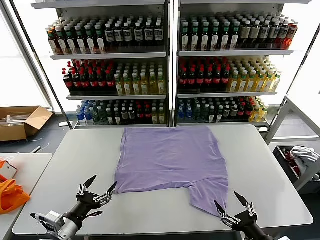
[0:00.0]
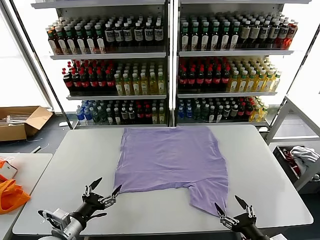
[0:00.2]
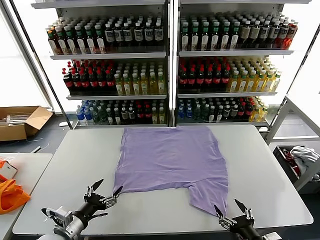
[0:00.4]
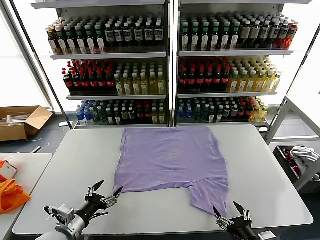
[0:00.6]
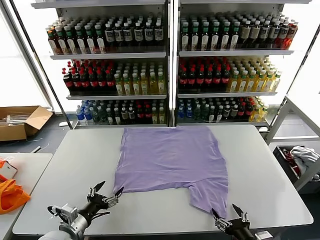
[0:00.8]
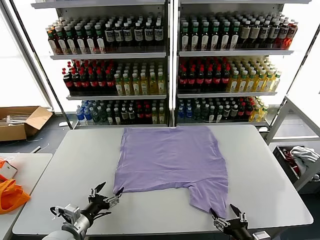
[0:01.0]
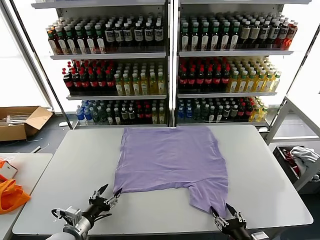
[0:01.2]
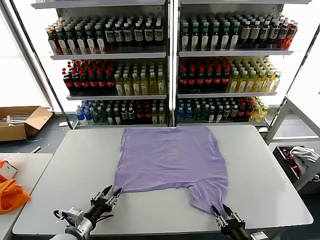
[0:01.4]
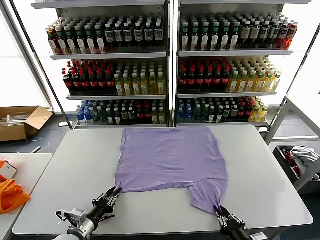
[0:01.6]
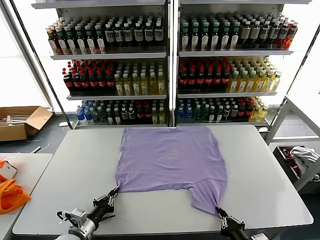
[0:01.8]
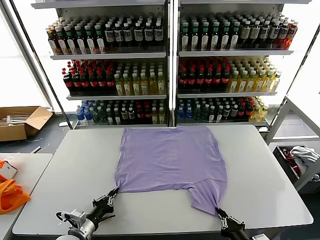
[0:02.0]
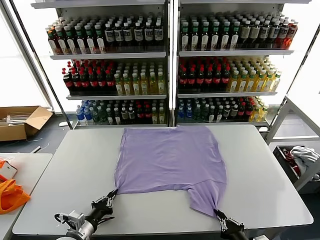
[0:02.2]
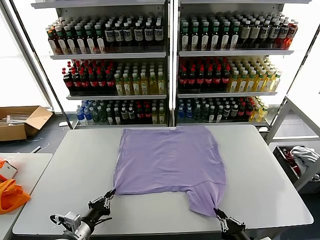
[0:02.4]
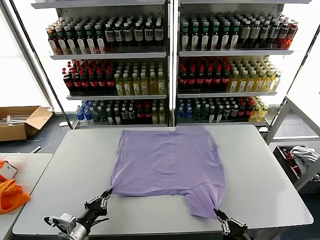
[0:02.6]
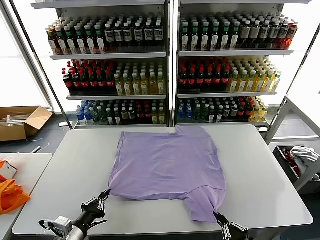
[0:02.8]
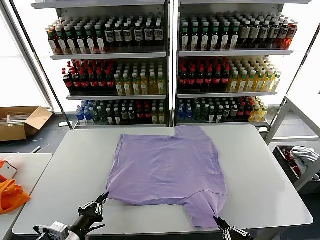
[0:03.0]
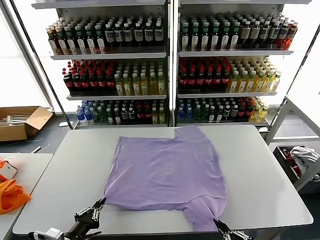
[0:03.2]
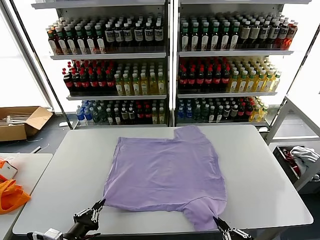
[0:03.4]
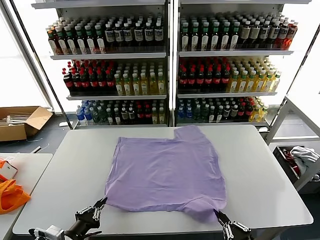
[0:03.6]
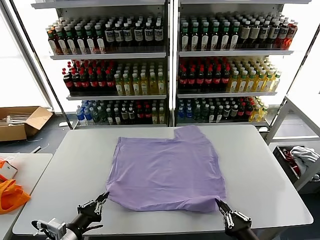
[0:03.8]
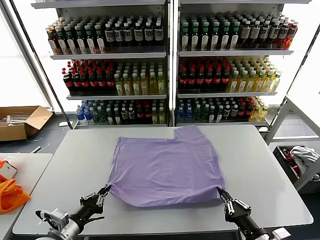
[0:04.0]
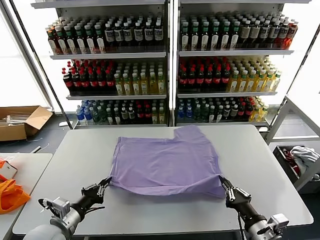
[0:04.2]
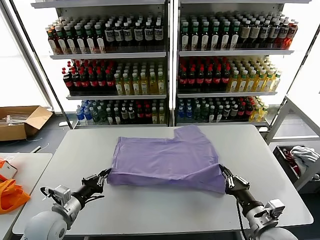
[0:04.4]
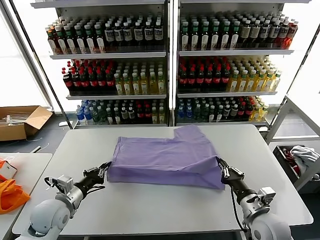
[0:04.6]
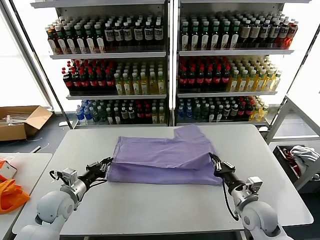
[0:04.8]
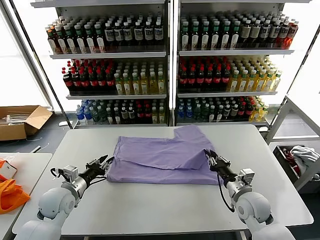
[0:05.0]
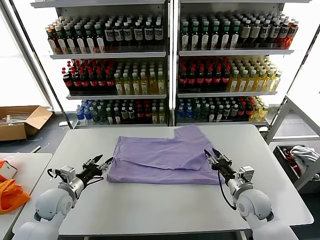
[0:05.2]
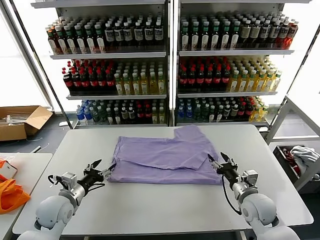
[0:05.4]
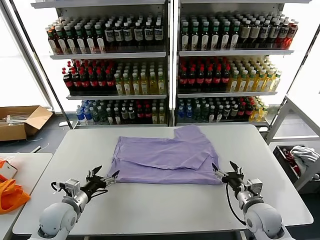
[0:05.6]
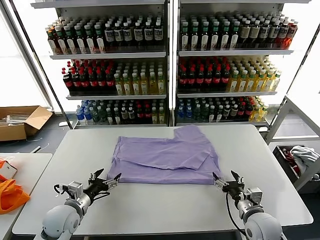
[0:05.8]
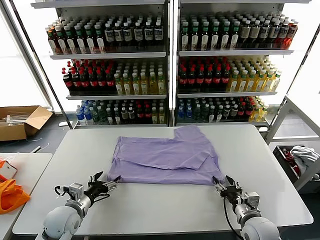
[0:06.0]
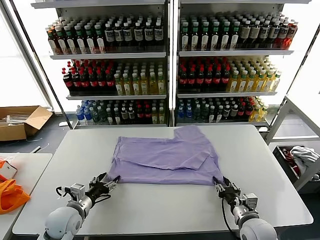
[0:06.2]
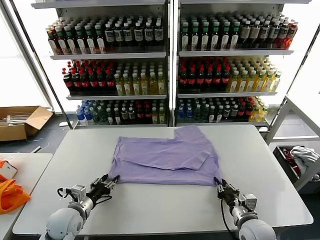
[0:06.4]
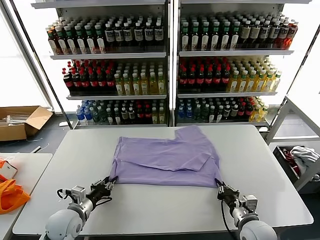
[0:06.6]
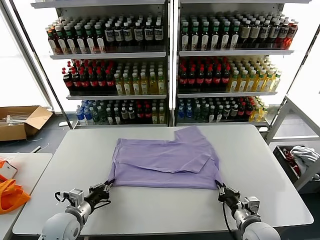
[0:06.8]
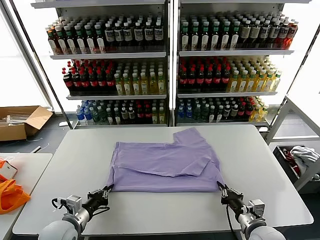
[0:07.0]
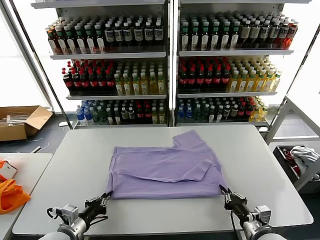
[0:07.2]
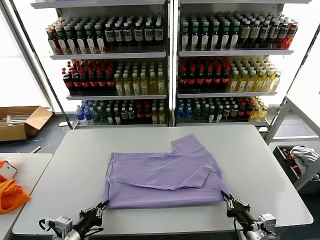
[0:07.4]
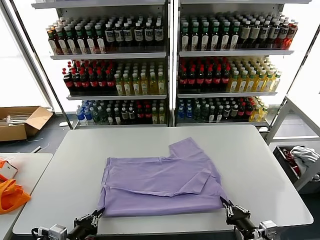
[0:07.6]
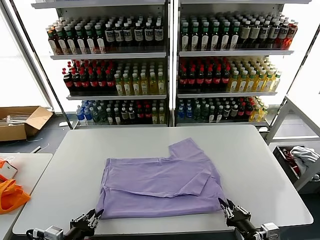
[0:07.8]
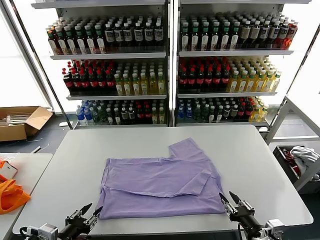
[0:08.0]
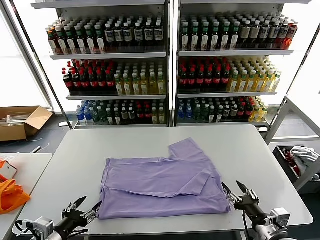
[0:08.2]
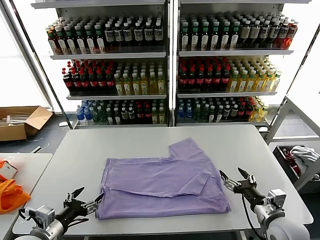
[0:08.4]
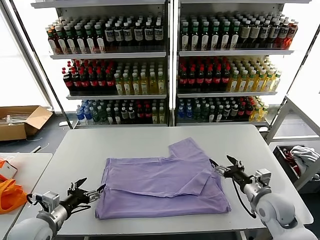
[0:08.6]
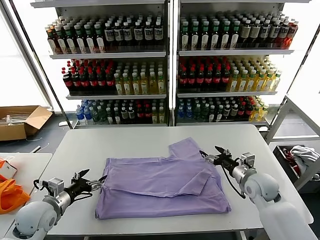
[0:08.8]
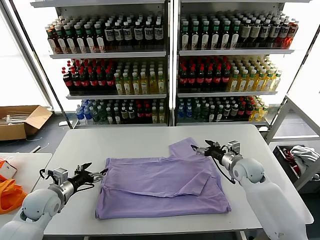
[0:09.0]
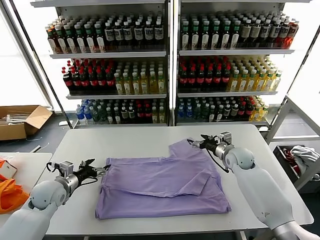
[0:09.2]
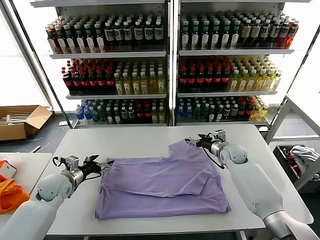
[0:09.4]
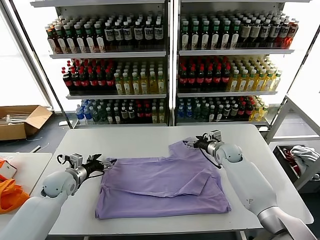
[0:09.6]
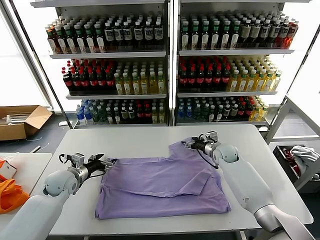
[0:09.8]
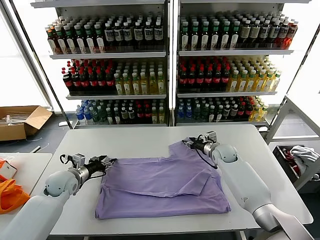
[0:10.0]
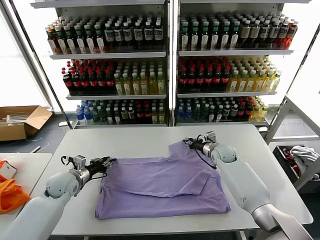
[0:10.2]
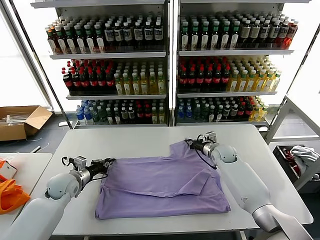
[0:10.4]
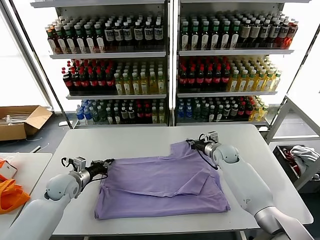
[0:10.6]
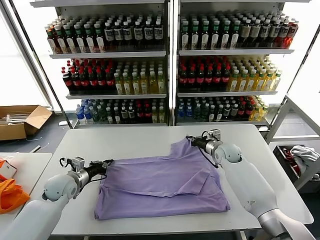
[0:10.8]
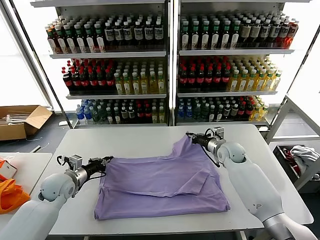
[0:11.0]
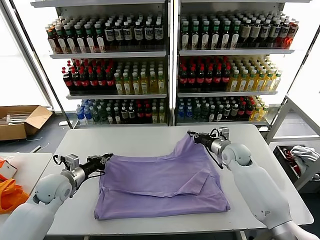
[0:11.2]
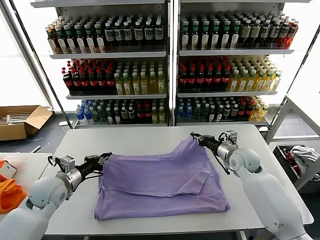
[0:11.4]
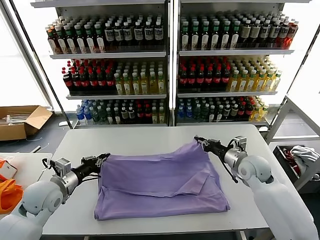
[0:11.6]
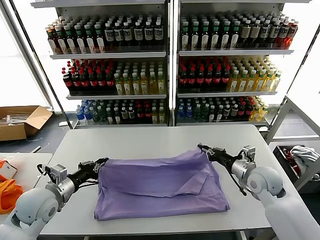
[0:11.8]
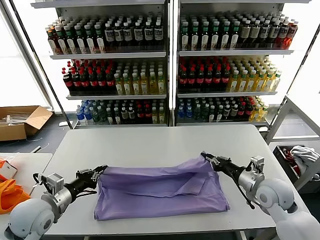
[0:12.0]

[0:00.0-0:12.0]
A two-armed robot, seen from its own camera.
Task of the whole recording: fold and organize the clothes.
Step, 0:00.0 to 0:02.2: use both grippers simultaneously to clamp the lower edge of the clothing fabric.
Step, 0:02.4 to 0:05.0: use both grippers to drag the lower edge of the fabric forward and fold it over the upper edge.
Step, 0:05.2 to 0:08.0: Drag the clothes downward with both gripper.
Step, 0:08.2 to 0:10.6: use both grippers simultaneously to clamp the upper edge of the clothing fabric.
0:01.6 to 0:03.0: The two grippers go about 10 cm backward and upward.
0:03.0 to 0:04.4: Both grippers move forward, approximately 15 cm.
0:04.4 to 0:06.0: Both grippers travel together downward, some 5 cm. The right gripper moves about 10 cm forward and comes back, and opens its fingers, while the left gripper opens up.
0:06.0 to 0:07.6: Both grippers move backward, some 15 cm. The left gripper closes, while the right gripper closes its fingers.
0:07.6 to 0:09.0: The left gripper travels forward by some 20 cm, and opens its fingers. The right gripper shifts roughly 35 cm forward, and opens up.
0:09.0 to 0:10.4: Both grippers travel together forward, roughly 5 cm. The left gripper closes up. The right gripper closes up.
0:10.4 to 0:12.0: The left gripper moves backward and upward, some 15 cm. The right gripper heads backward, covering roughly 25 cm.

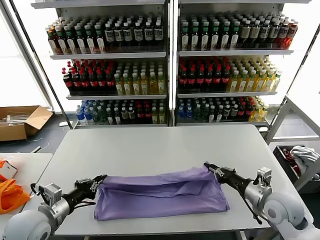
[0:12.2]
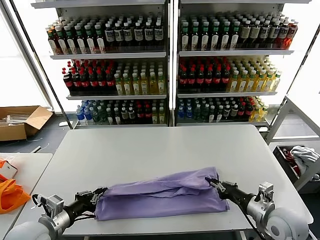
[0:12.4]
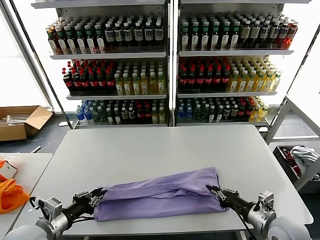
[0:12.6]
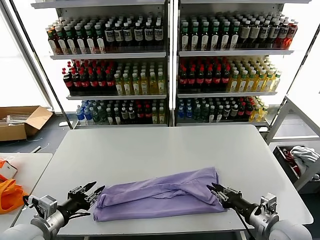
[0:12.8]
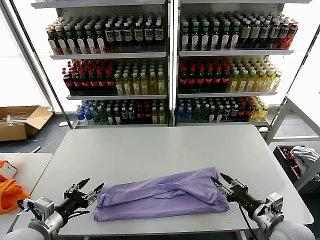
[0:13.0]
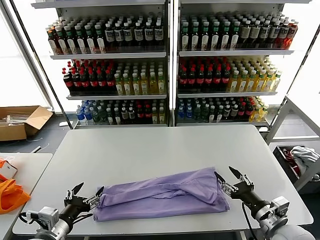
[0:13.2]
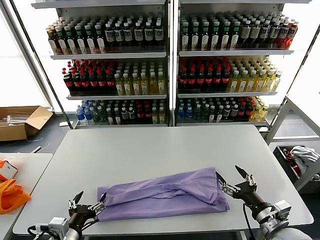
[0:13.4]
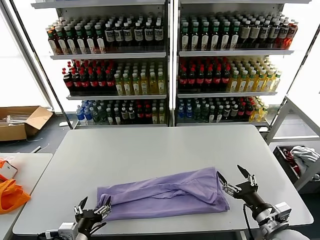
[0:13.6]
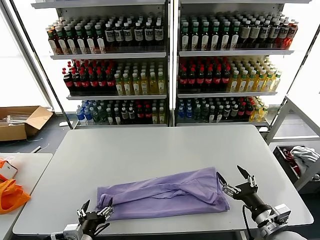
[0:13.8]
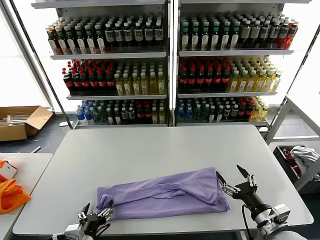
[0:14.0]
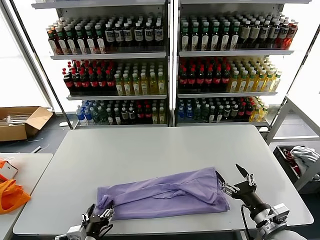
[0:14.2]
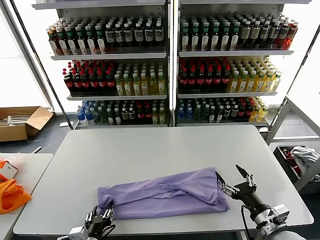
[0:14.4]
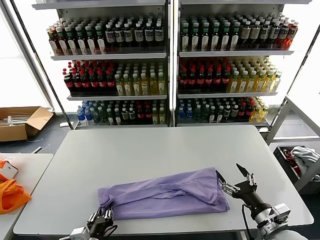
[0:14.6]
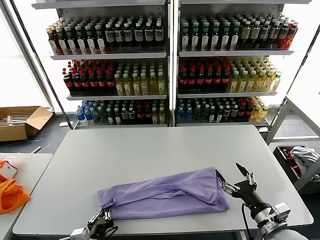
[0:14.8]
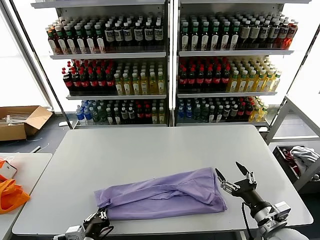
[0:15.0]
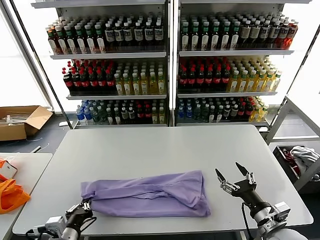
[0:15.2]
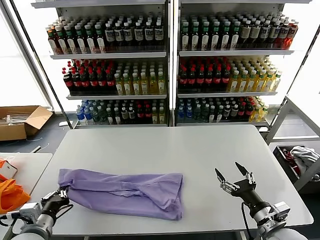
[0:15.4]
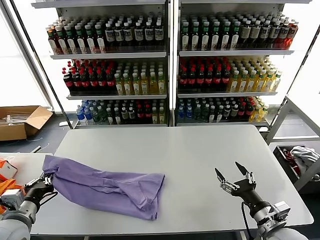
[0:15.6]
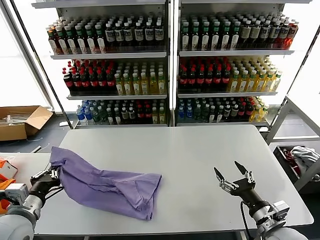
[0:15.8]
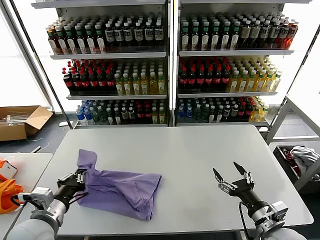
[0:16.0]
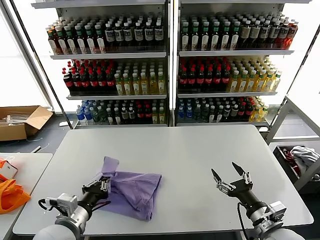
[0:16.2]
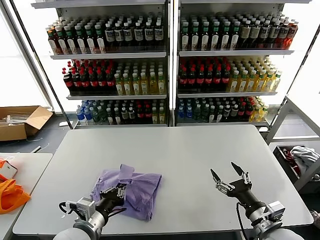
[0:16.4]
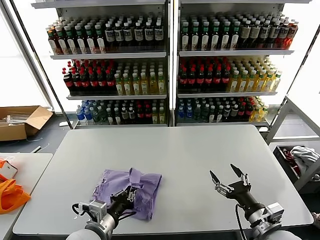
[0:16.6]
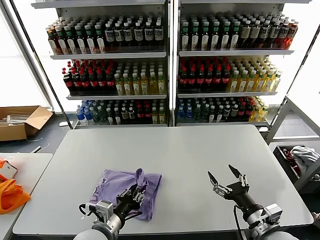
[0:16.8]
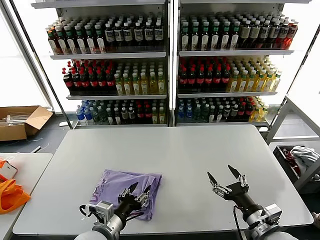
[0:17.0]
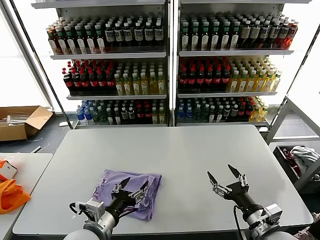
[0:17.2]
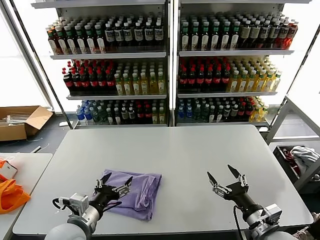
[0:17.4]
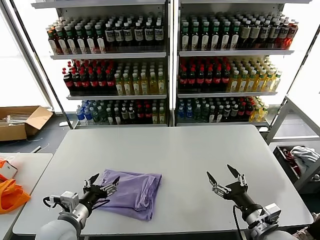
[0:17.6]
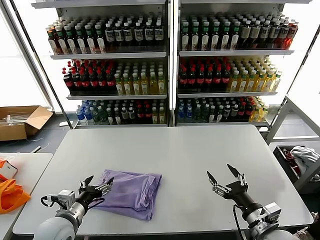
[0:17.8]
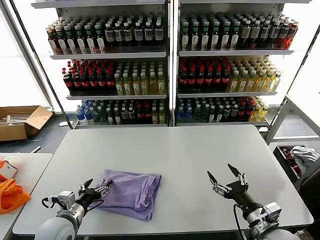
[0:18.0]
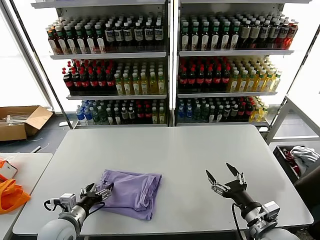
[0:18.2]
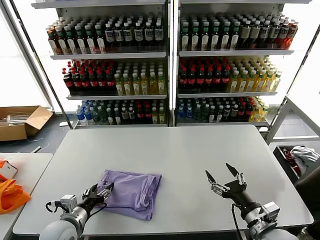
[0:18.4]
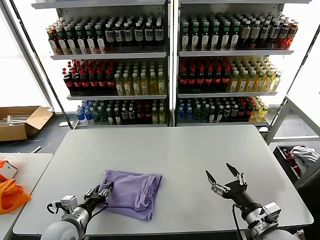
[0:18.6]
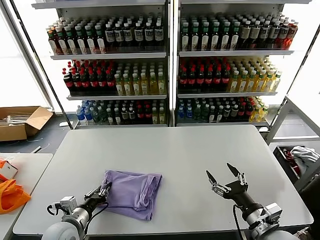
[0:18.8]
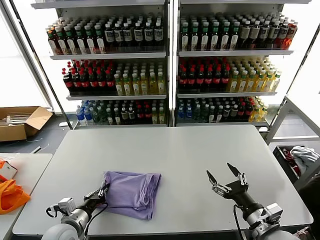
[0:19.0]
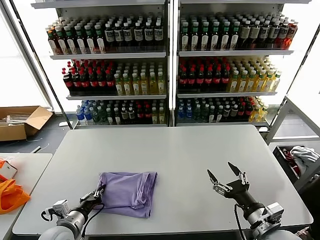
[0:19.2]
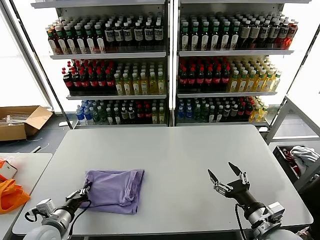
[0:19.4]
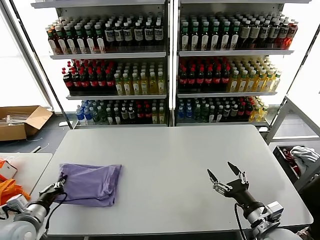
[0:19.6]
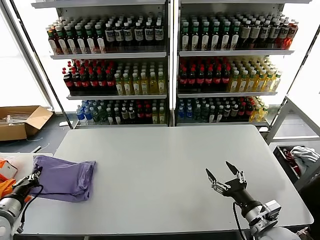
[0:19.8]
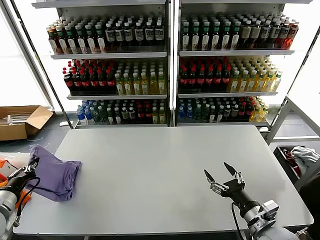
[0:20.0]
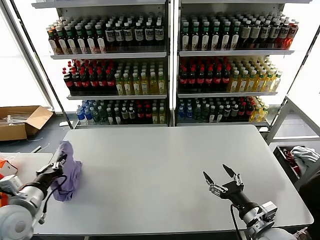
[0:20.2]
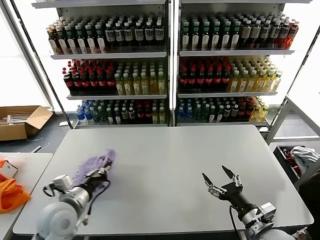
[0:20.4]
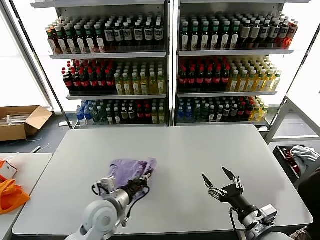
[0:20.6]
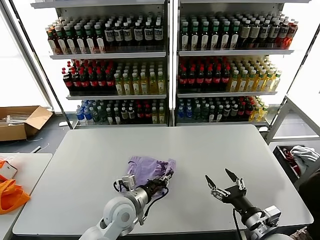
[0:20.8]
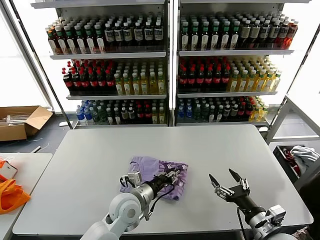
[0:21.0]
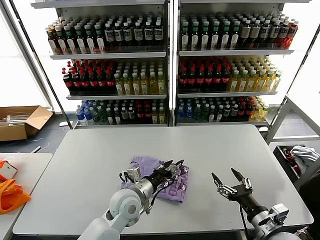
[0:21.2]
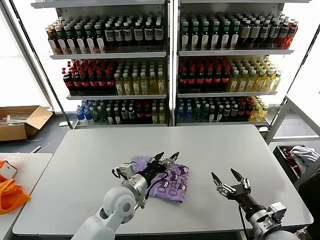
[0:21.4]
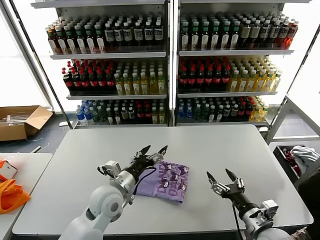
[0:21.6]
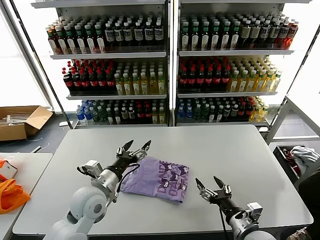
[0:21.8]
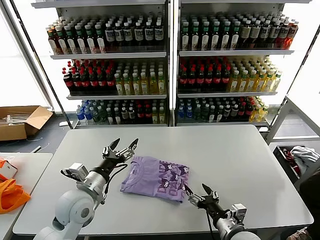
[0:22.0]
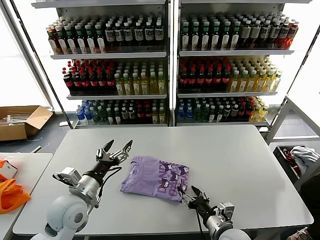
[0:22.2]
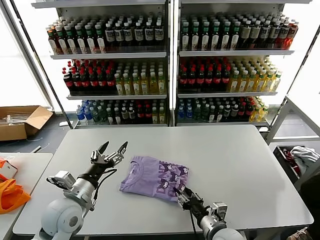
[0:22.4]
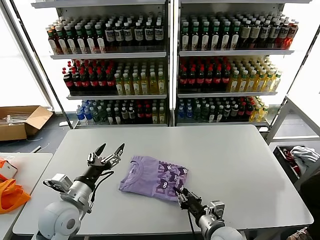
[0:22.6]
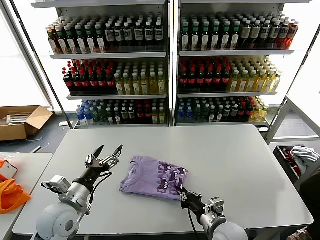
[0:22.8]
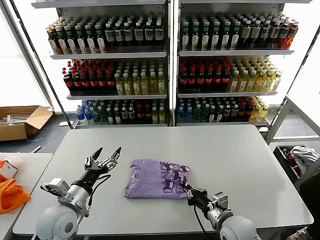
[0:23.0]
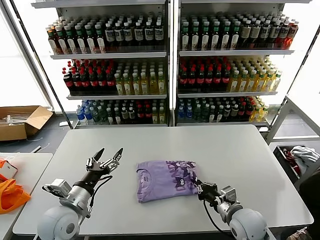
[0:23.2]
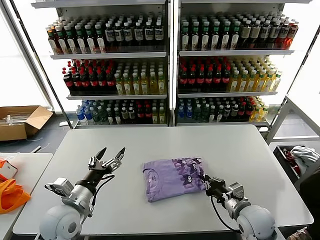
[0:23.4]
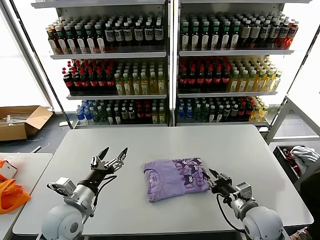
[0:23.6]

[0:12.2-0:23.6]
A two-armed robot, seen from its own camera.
Task of the whole recording: fold and organize the clothes.
Step, 0:12.8 to 0:14.8: use the left gripper to clamp the left edge of the fabric.
Step, 0:15.0 to 0:16.8: use the left gripper to drag the left edge of the fabric to the left and folds it over the right edge.
Step, 0:17.2 to 0:21.0: Flip the folded clothes over with left gripper.
0:12.2 to 0:13.6: The left gripper moves to the right, backward and downward, about 15 cm, and opens up. Meanwhile the right gripper goes about 10 cm backward, and opens up.
0:13.6 to 0:15.0: The left gripper closes up.
0:15.0 to 0:16.4: The left gripper is displaced upward and forward by about 10 cm, and travels to the left and back again, some 15 cm each way.
0:16.4 to 0:17.8: The left gripper travels to the left by roughly 5 cm, and opens up.
0:17.8 to 0:19.4: The left gripper ends up some 5 cm from where it was, and closes.
0:19.4 to 0:20.8: The left gripper is displaced to the right by approximately 20 cm.
0:20.8 to 0:22.2: The left gripper is displaced to the left and upward by some 15 cm, and opens its fingers, while the right gripper moves to the left and downward, about 10 cm.
0:22.2 to 0:23.6: The right gripper heads to the right and forward, covering approximately 10 cm, and closes up.
